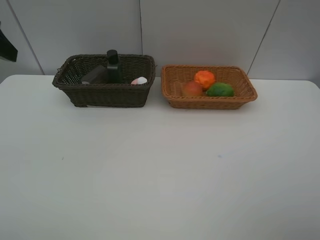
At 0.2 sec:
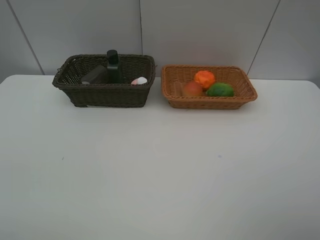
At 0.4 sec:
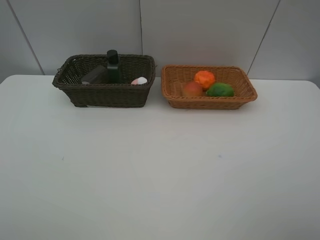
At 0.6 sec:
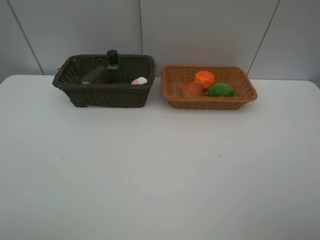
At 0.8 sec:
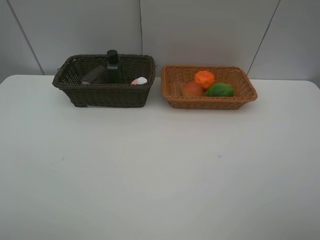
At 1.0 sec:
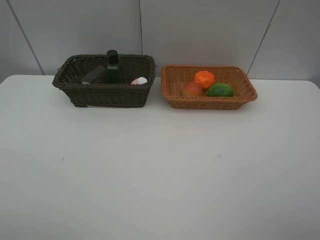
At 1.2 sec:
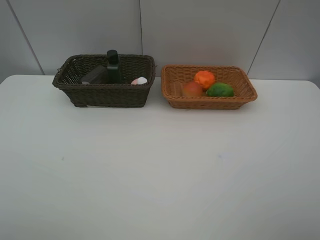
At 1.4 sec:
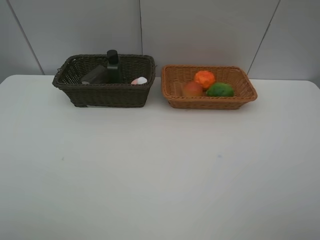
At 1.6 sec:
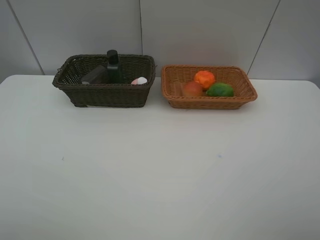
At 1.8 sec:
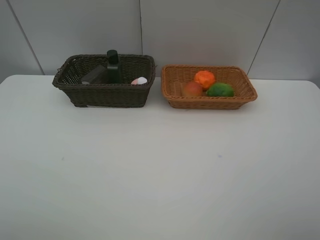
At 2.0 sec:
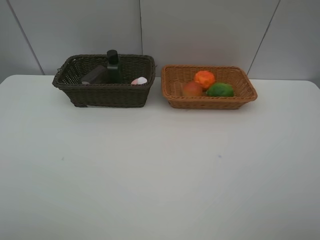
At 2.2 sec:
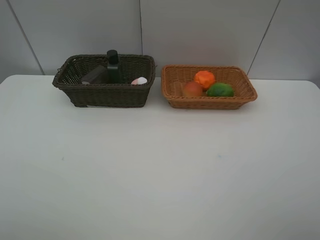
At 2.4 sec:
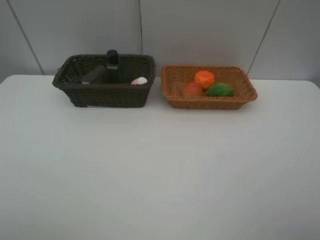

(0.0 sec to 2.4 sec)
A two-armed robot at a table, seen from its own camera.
Task of the whole recording: place multiple objects separately in different baskets.
1.2 sec - 2.4 sec: Both grippers stay about where they are.
